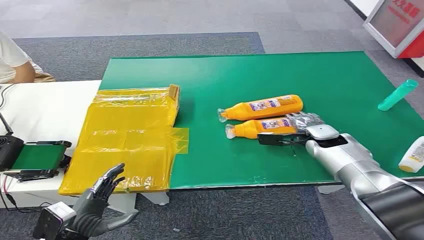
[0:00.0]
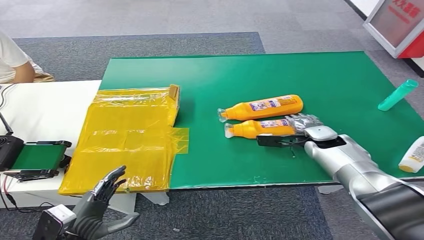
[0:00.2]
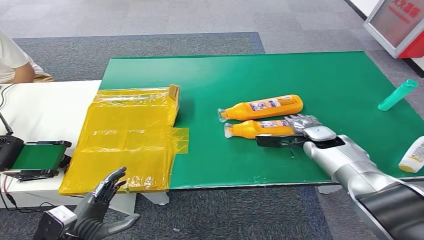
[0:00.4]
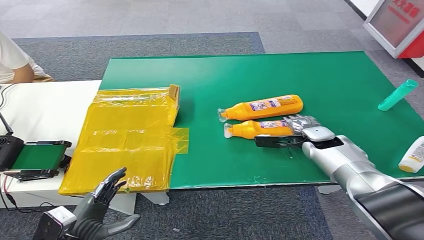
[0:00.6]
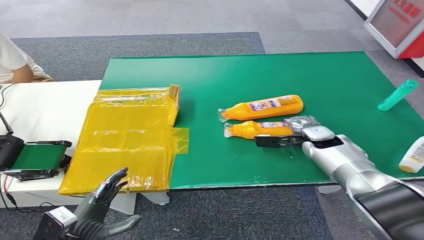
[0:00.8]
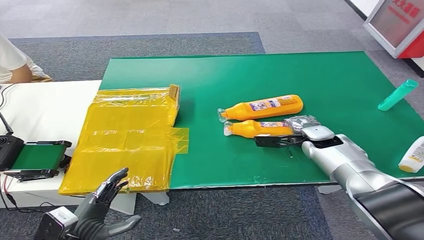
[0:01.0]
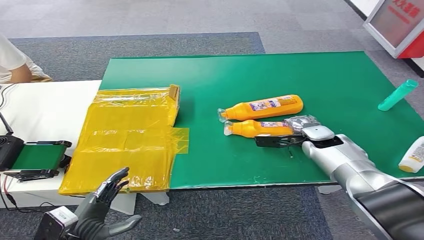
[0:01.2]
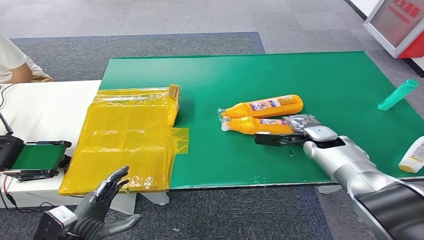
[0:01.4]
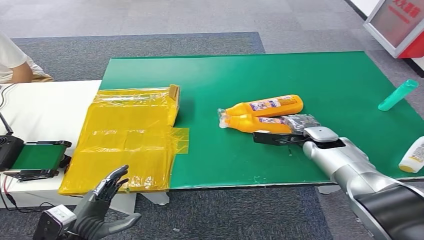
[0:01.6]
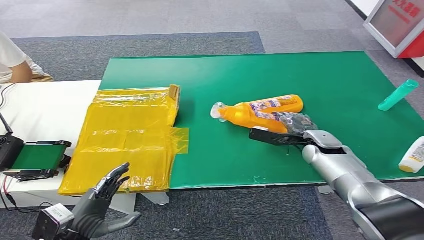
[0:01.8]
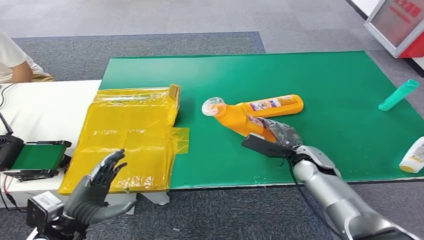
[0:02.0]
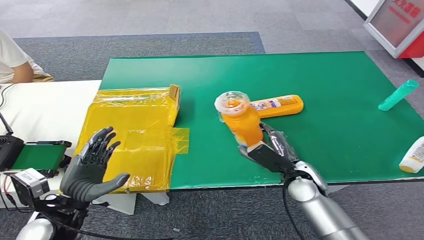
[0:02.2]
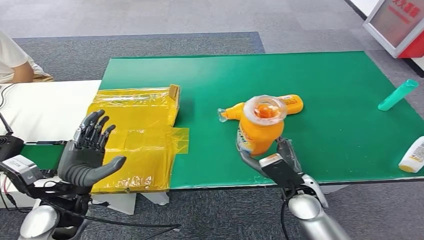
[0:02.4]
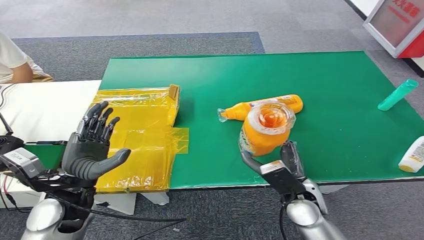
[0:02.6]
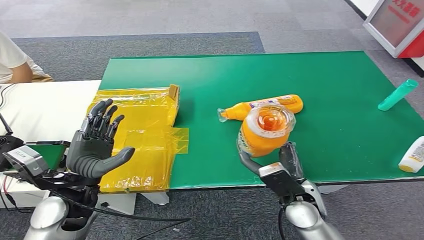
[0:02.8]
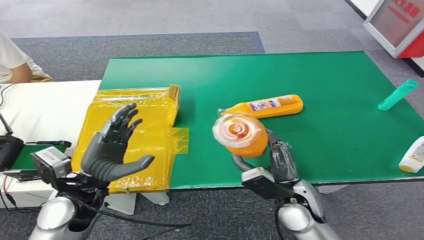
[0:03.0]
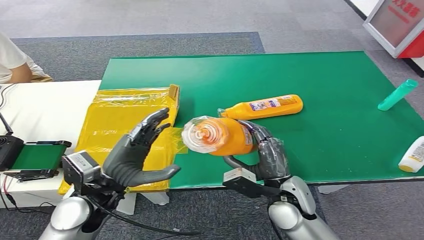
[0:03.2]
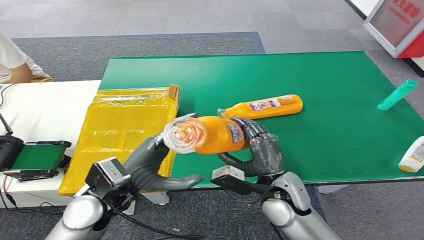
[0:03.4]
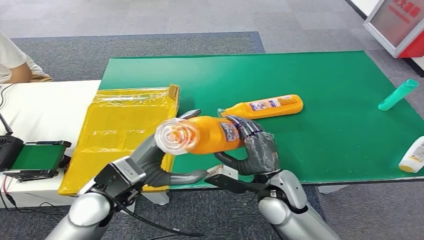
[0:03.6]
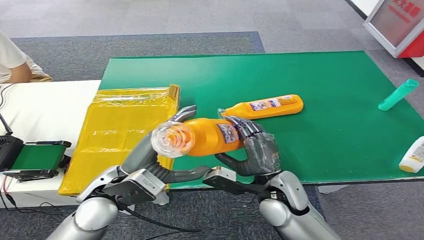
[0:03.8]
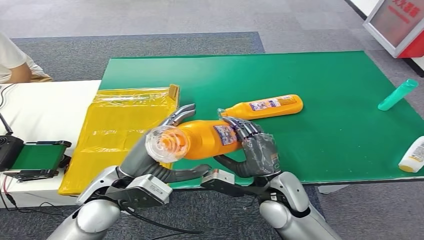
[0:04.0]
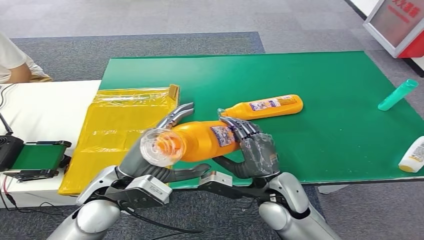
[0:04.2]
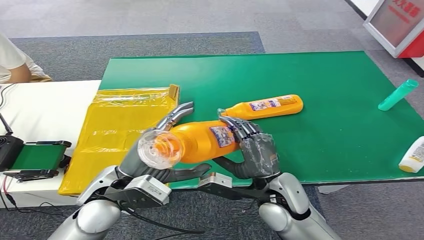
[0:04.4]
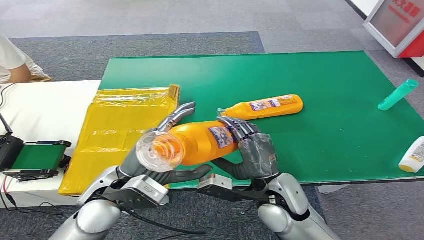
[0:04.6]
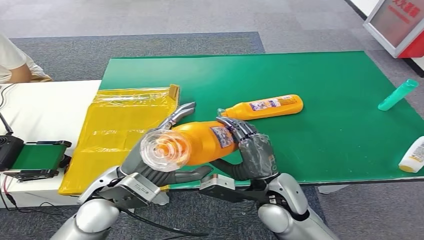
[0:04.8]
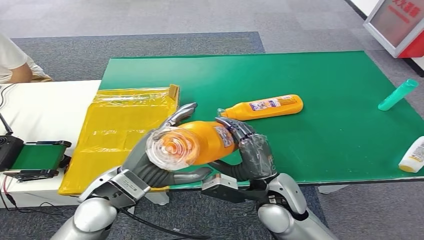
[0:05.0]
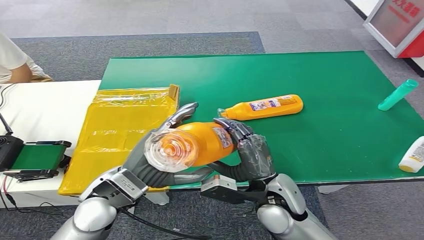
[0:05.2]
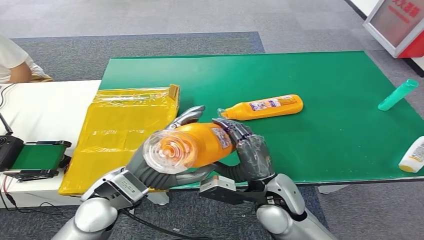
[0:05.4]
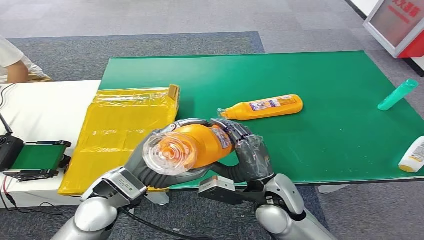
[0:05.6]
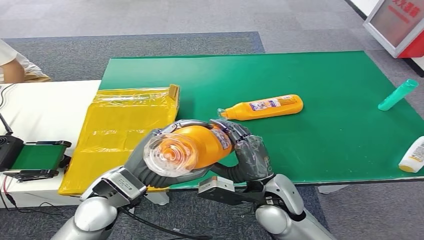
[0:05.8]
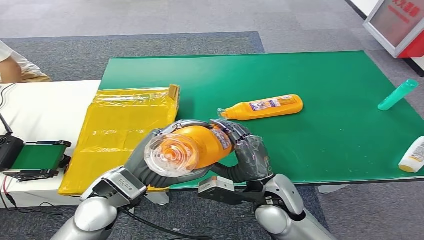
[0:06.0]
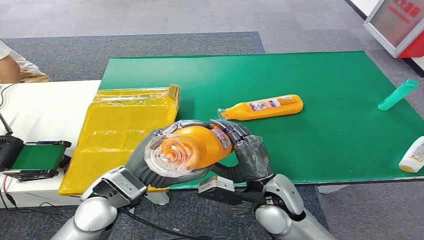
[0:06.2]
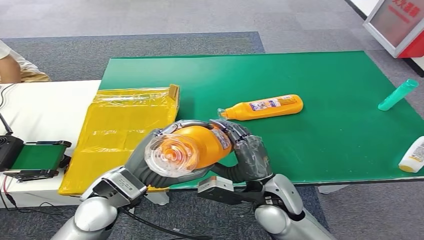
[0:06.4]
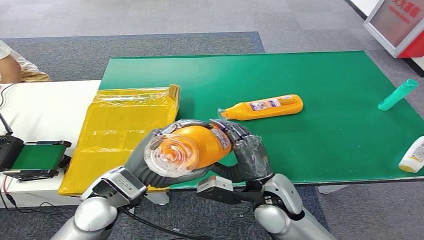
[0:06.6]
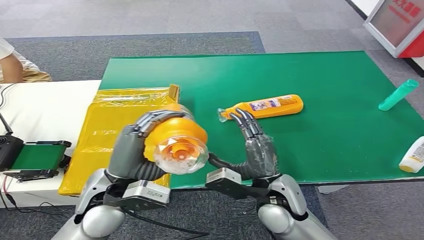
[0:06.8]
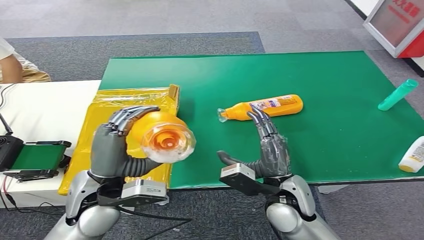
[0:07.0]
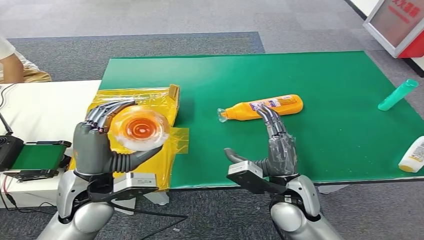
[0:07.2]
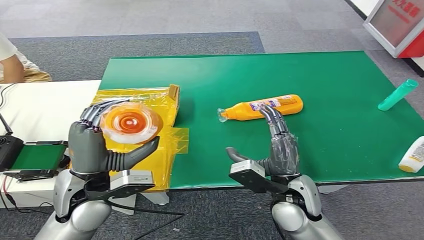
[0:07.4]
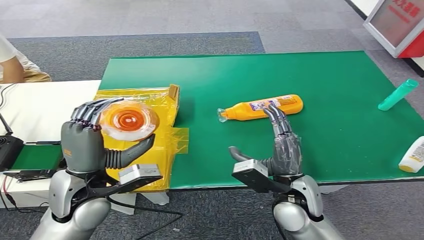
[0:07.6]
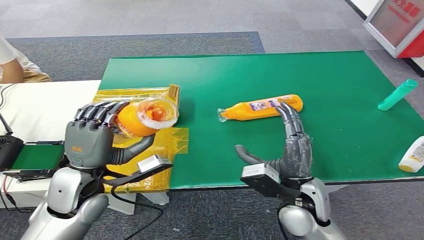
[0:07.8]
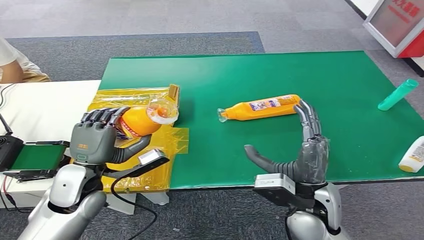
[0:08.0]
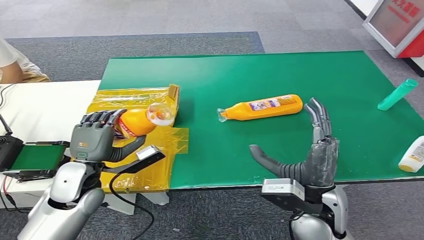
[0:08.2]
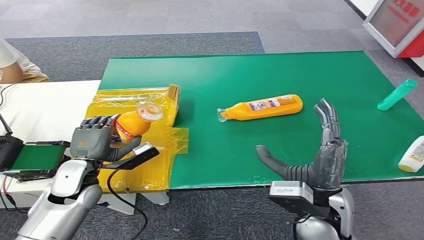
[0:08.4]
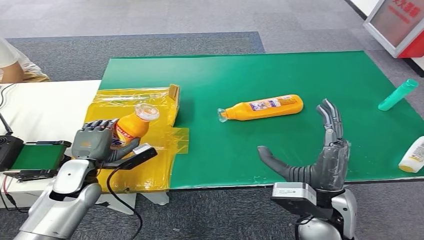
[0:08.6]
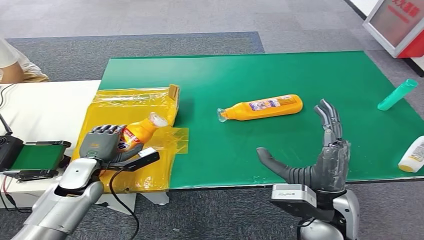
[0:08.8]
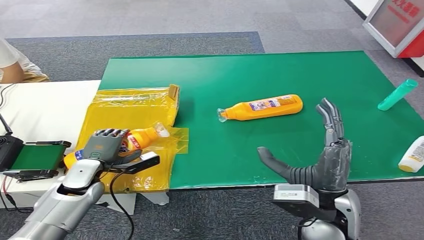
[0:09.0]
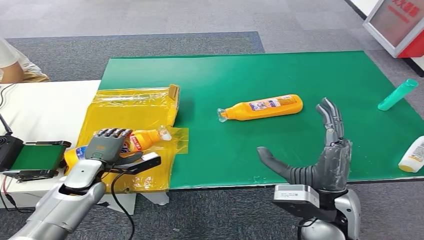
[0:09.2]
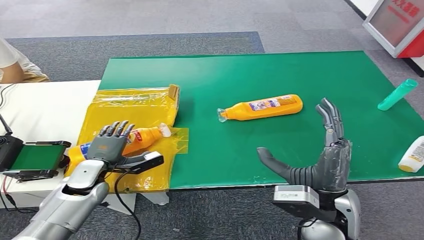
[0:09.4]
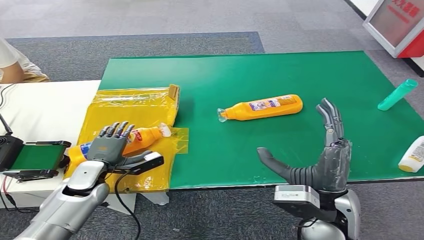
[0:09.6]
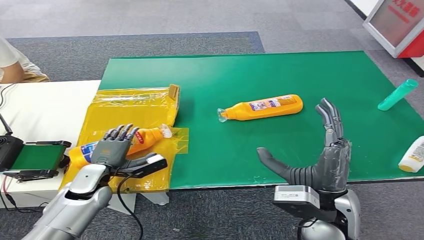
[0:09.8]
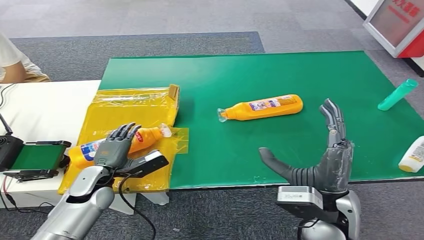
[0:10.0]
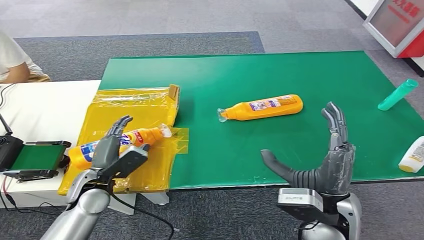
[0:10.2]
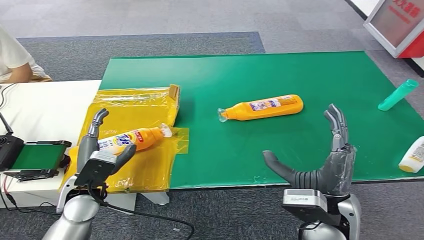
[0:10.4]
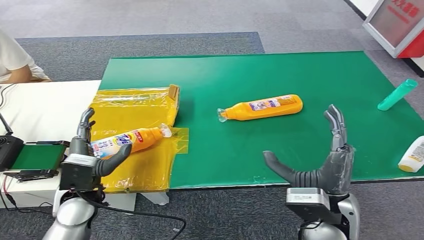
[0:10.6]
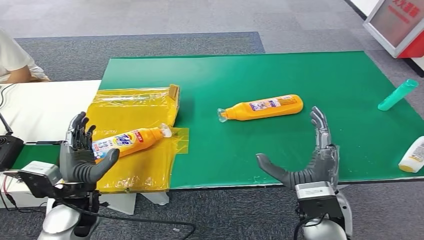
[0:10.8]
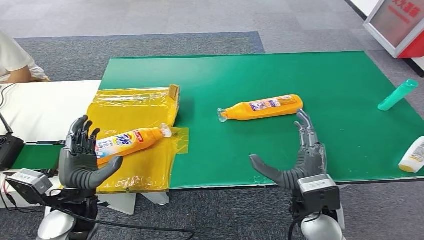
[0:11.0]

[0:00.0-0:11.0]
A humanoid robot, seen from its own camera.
Step, 0:00.0 to 0:02.4: Pick up the bottle from the table.
Step, 0:05.4 to 0:11.0: Turn the bottle to the front side.
0:04.8 to 0:06.2: The hands move only a little.
0:07.8 to 0:09.4: The right hand ends up about 5 cm from where it was; the left hand goes some 15 cm downward, forward and to the left.
0:09.4 to 0:11.0: The left hand shifts approximately 10 cm backward and upward.
